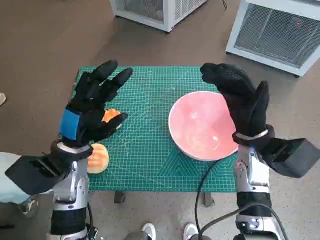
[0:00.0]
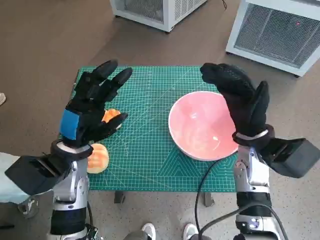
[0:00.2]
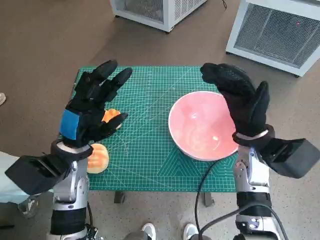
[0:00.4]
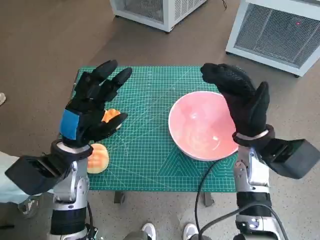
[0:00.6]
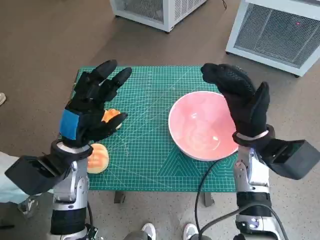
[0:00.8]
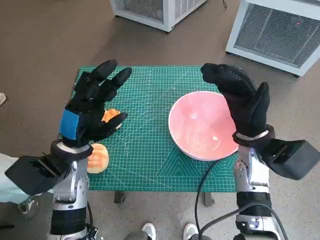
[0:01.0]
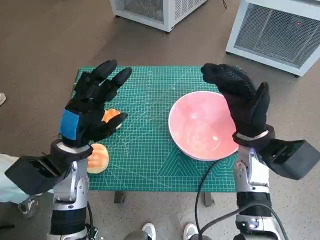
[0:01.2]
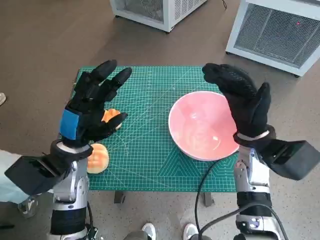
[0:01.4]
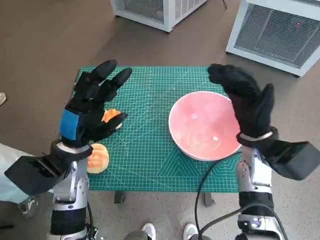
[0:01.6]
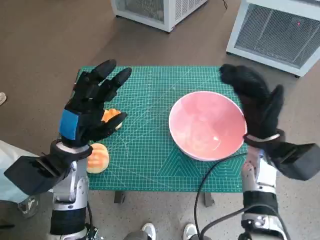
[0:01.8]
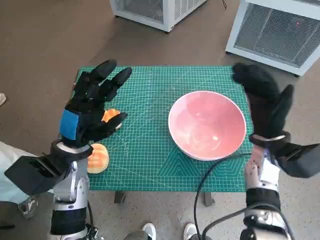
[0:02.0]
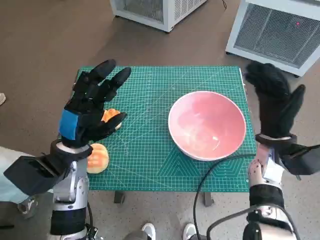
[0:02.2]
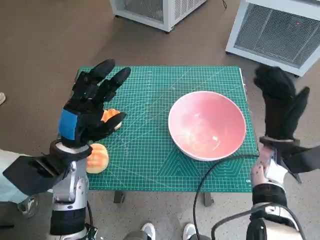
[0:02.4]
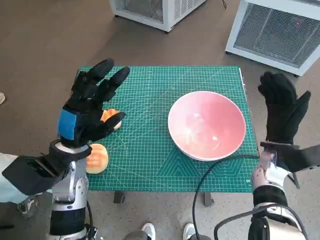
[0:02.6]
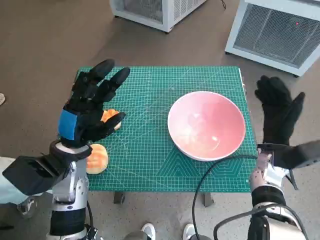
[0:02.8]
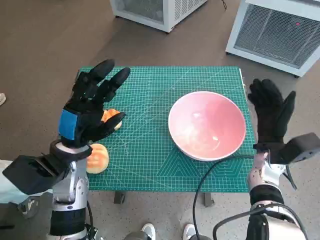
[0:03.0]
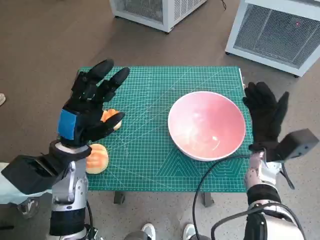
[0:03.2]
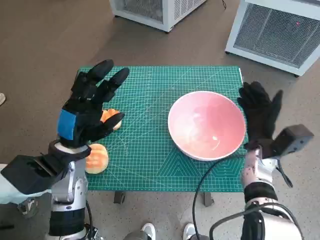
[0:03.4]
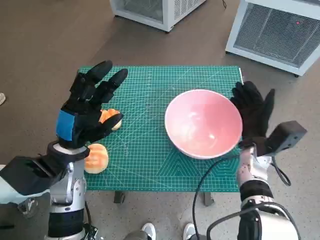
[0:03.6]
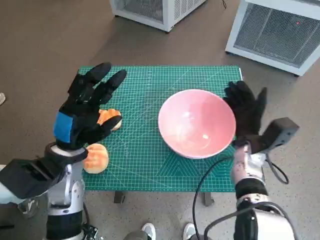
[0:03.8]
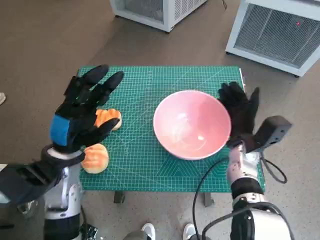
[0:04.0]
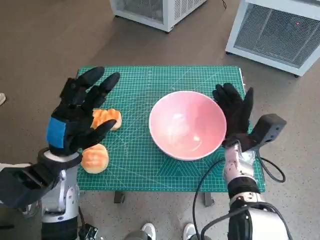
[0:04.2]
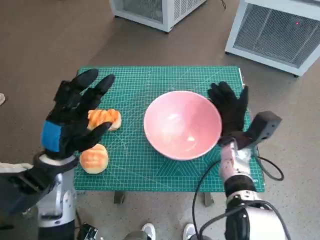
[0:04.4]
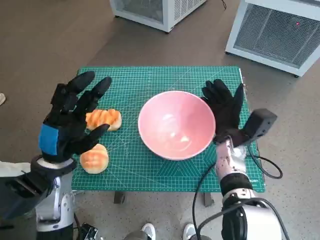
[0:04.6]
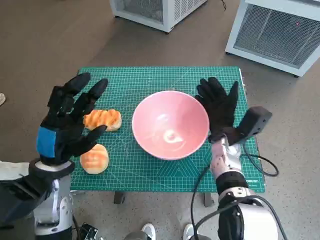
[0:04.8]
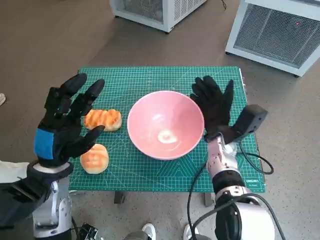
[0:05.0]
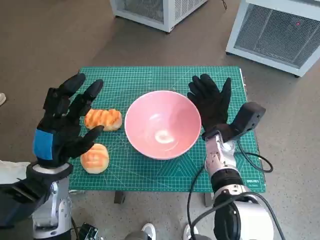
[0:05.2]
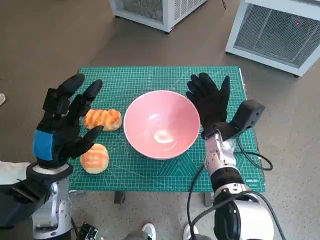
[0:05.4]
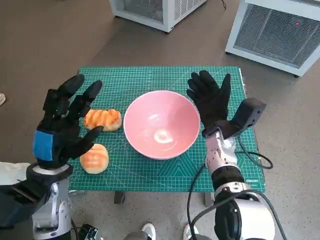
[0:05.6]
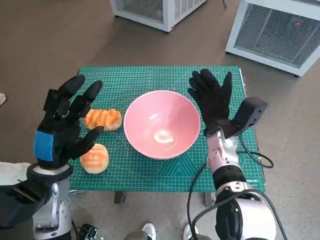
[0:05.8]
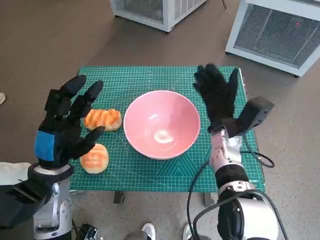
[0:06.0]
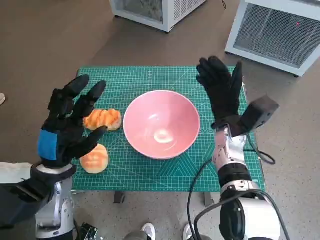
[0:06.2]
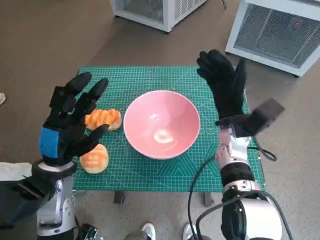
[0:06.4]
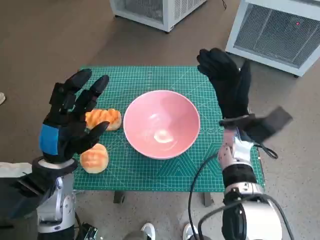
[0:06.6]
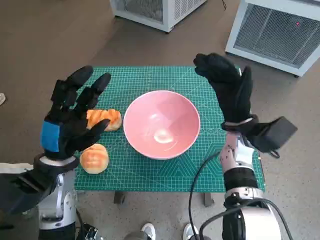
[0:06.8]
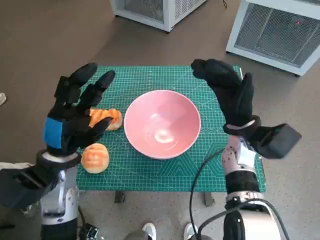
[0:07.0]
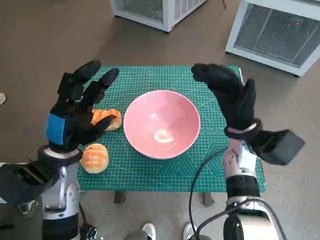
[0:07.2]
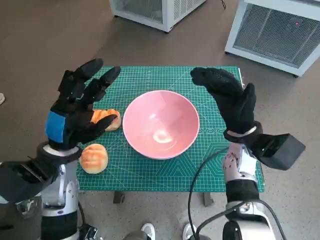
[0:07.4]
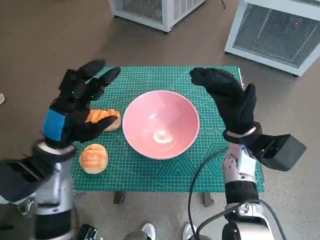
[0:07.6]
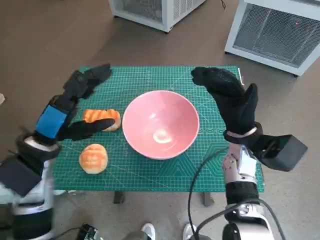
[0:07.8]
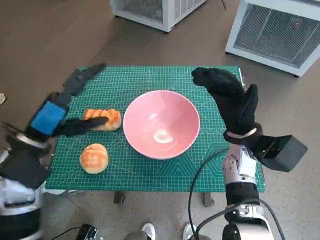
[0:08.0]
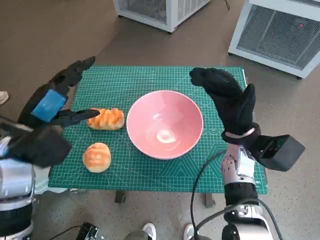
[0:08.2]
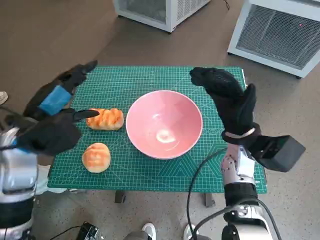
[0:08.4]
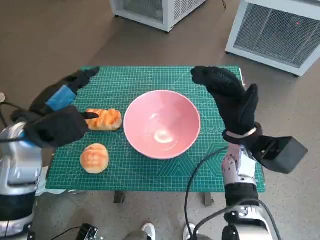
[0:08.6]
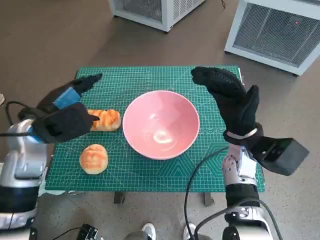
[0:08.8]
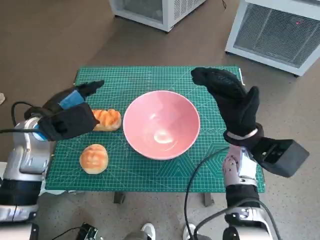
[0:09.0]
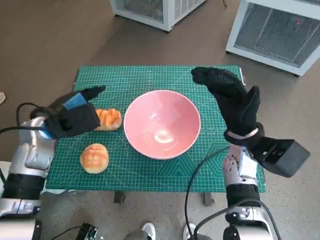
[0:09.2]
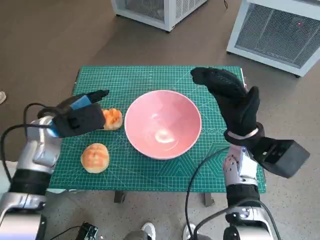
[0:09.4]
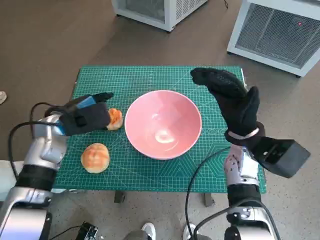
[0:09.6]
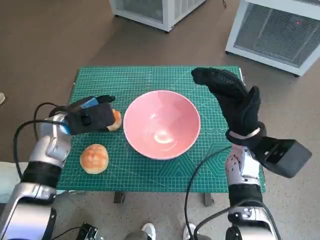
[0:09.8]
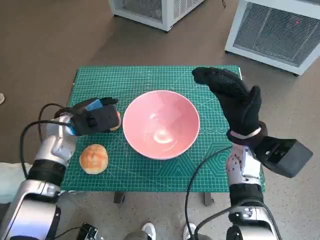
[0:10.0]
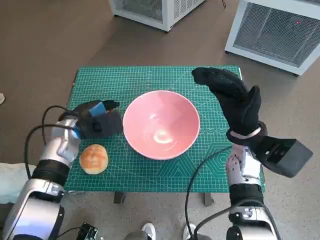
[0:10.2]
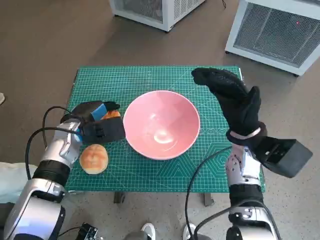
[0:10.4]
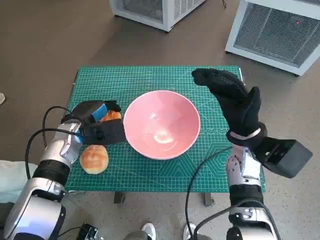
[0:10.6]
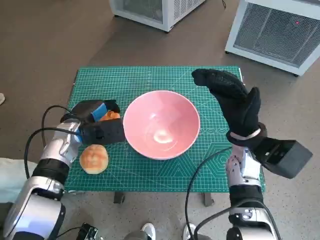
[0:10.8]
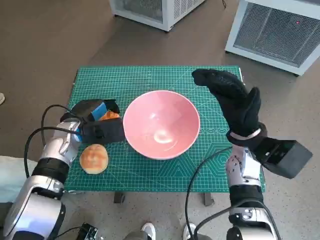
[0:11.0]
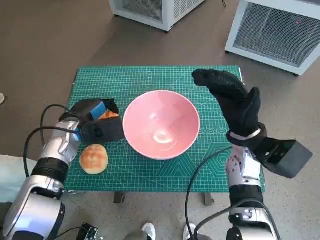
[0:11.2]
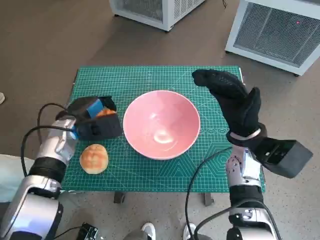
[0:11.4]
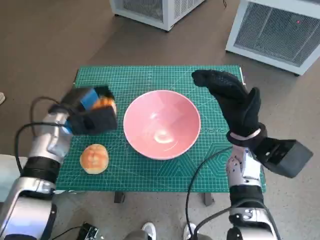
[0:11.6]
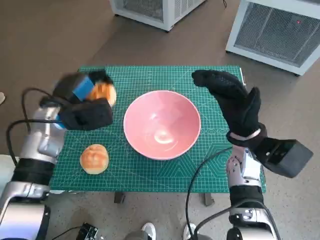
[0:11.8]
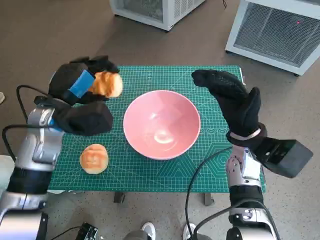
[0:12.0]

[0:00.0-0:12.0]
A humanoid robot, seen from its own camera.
Task of the whole recording: Push the bowl into the center of the table and put the bread into the bowl.
Step, 0:00.0 to 0:05.8: Move the pink bowl to the center of table with right hand.
Step, 0:06.0 to 0:10.2: Grasp the long bread with left hand.
0:01.6 to 0:03.0: The right hand travels downward by some 5 cm.
0:03.0 to 0:04.4: The right hand heads to the left, covering some 5 cm.
0:07.6 to 0:09.0: The left hand is displaced forward by some 5 cm.
0:09.0 to 0:10.4: The left hand is displaced downward by roughly 5 cm.
0:10.4 to 0:12.0: The left hand heads upward, covering some 10 cm.

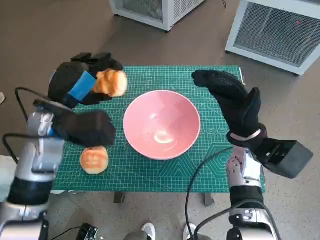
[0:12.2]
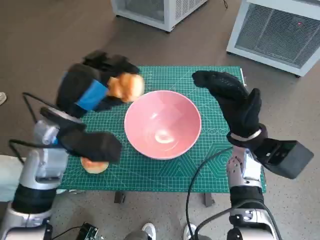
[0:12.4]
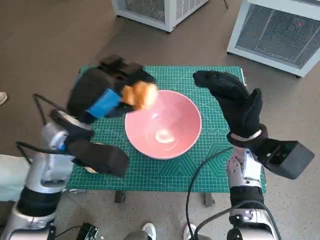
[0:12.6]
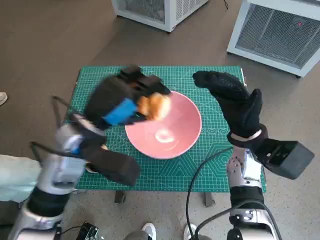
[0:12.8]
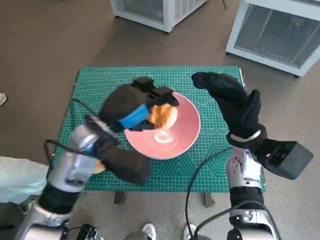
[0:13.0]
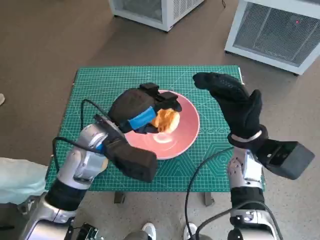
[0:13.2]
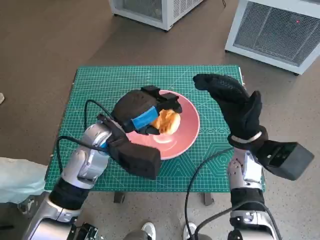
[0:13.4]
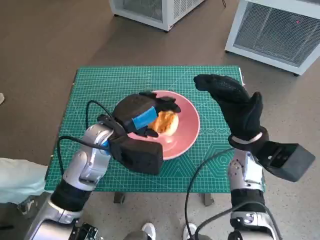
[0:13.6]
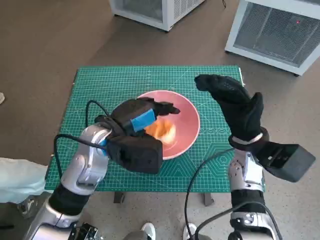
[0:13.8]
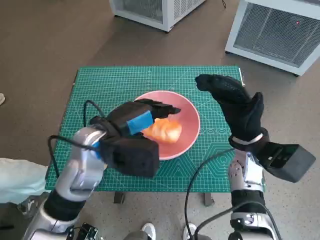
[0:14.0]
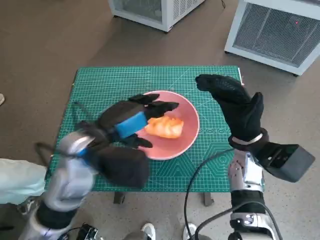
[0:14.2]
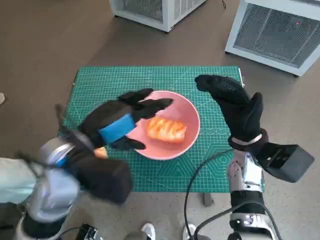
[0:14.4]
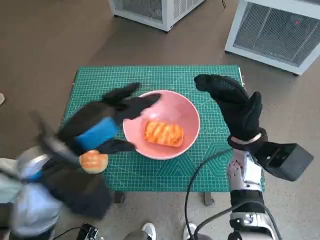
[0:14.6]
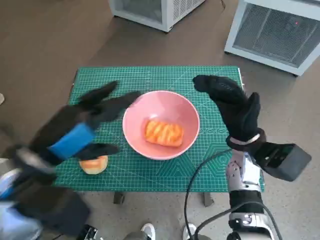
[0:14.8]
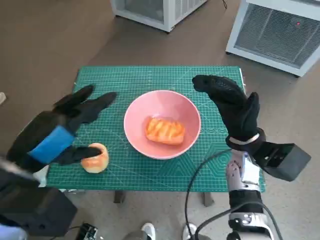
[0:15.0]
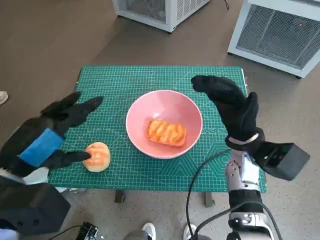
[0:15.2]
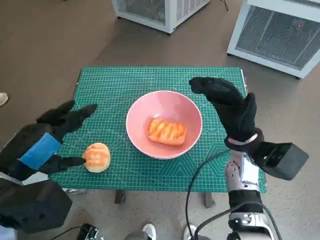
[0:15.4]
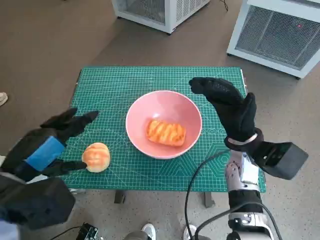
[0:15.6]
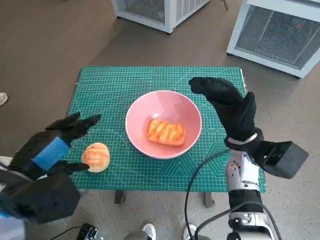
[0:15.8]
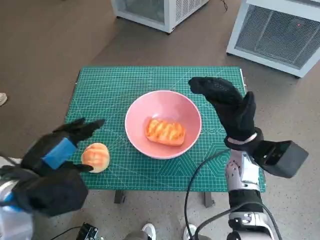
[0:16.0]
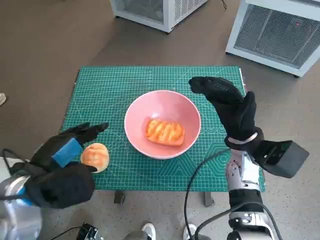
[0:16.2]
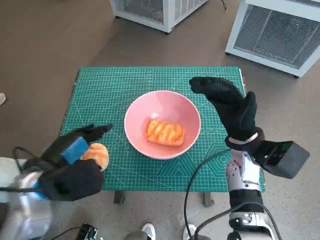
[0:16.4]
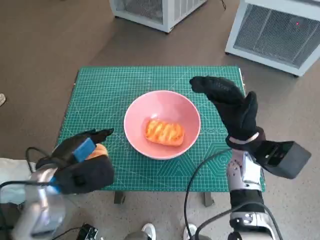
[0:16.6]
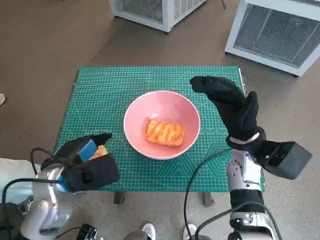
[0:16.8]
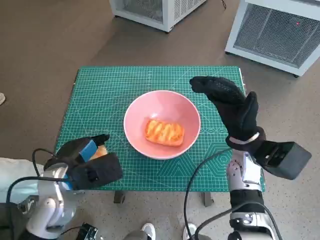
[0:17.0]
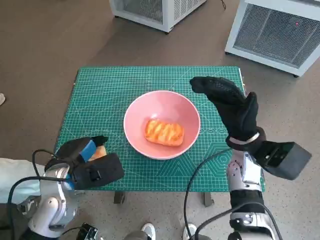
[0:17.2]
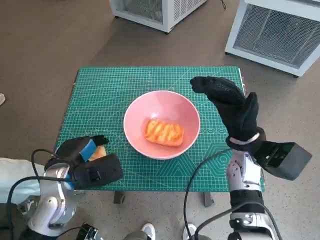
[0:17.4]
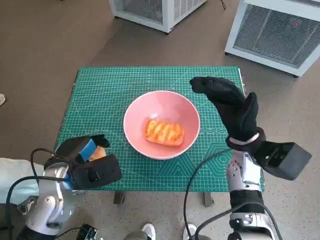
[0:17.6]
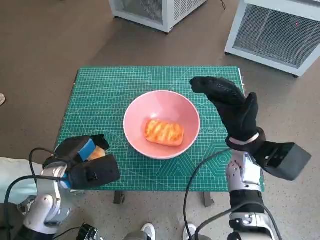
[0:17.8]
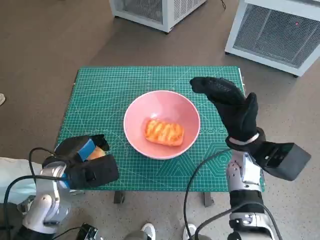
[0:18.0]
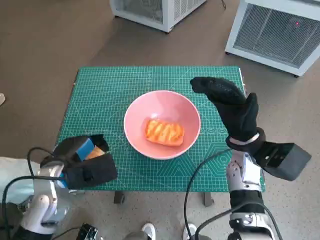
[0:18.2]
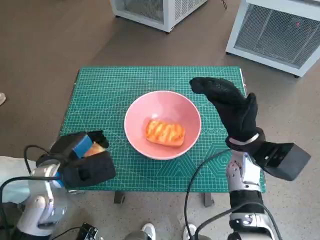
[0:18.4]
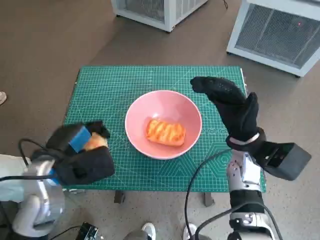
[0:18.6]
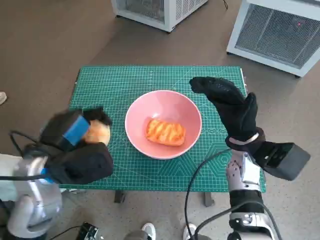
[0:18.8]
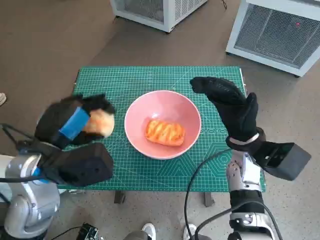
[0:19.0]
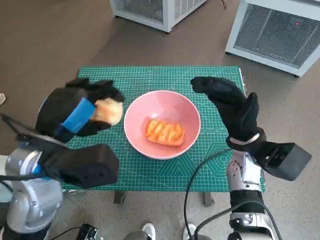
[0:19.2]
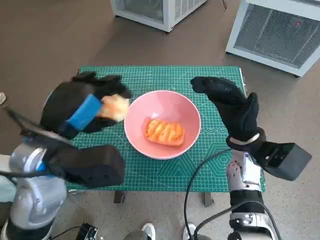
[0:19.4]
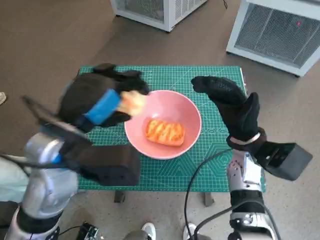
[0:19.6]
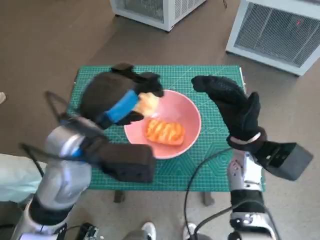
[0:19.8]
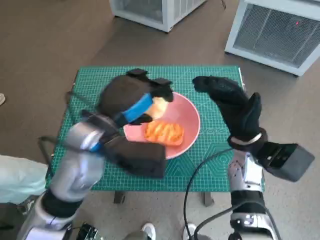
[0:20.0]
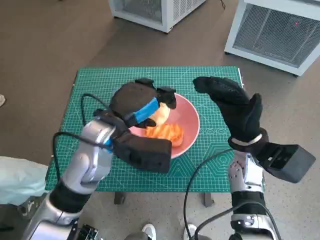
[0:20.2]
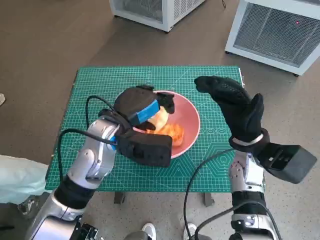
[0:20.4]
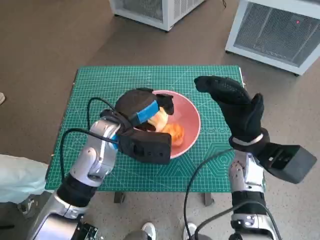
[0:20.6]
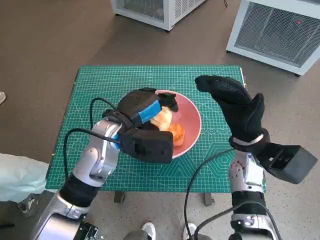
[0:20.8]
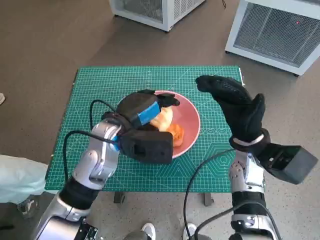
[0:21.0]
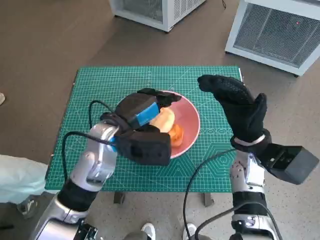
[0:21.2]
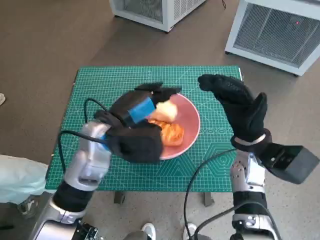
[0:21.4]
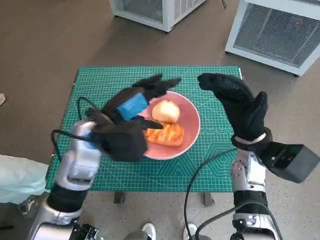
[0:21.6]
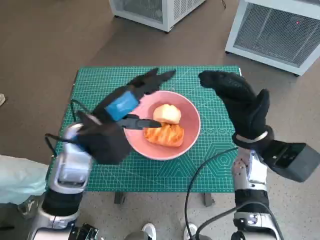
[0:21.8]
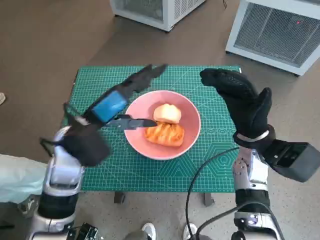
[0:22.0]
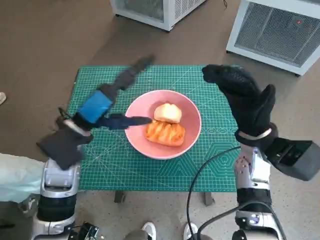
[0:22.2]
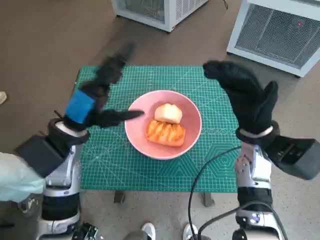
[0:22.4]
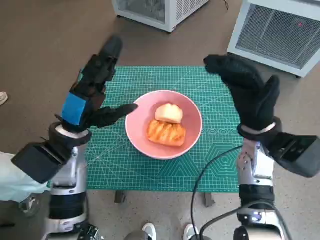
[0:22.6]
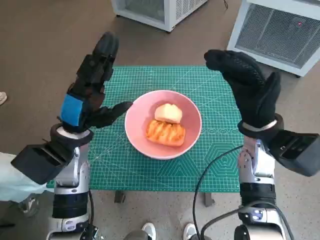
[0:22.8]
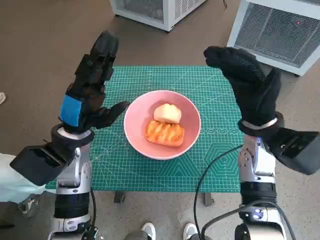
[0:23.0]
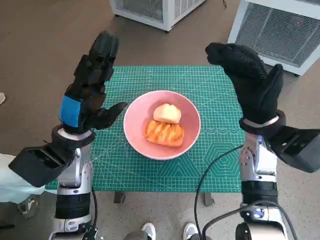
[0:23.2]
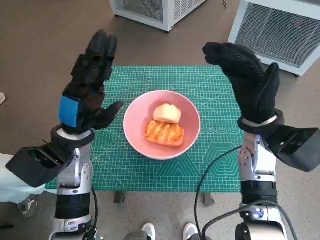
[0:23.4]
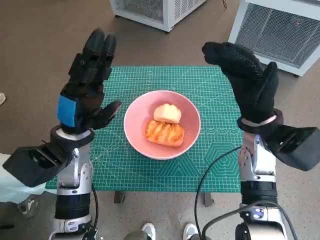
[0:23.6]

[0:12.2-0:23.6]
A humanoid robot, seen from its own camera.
Task of the whole recording: Push the bowl into the center of the table and put the bread into the bowl.
Step, 0:12.2 to 0:14.4: Place the long bread in pink bowl with left hand.
Step, 0:14.6 to 0:17.6: Grasp the round bread with left hand.
Step, 0:17.8 to 0:21.6: Place the round bread in pink bowl with left hand.
0:12.2 to 0:13.6: The left hand heads to the right, covering about 10 cm.
0:13.6 to 0:15.0: The left hand shifts approximately 15 cm backward, to the left and upward.
0:15.0 to 0:16.4: The left hand is displaced downward by some 10 cm.
0:16.4 to 0:17.8: The left hand heads downward, covering roughly 5 cm.
0:17.8 to 0:19.4: The left hand heads upward, covering some 15 cm.
0:19.4 to 0:20.8: The left hand shifts about 10 cm forward, downward and to the right.
0:20.8 to 0:22.2: The left hand is displaced to the left by approximately 5 cm.
